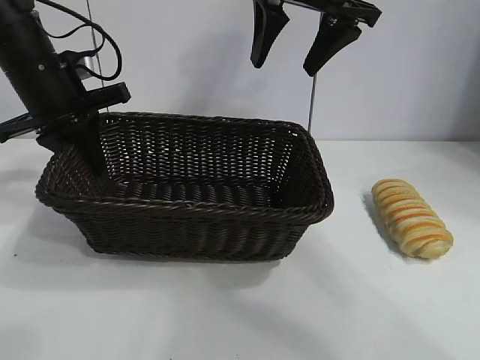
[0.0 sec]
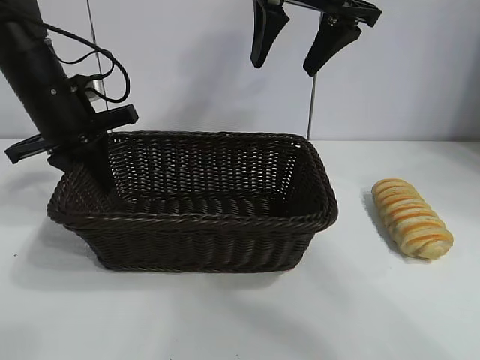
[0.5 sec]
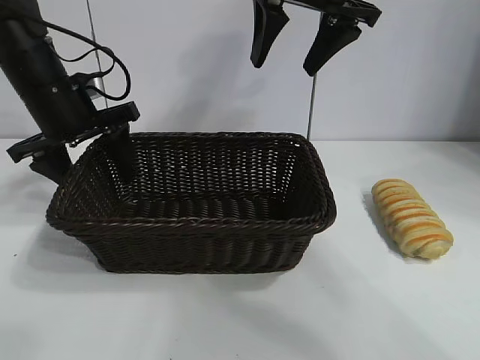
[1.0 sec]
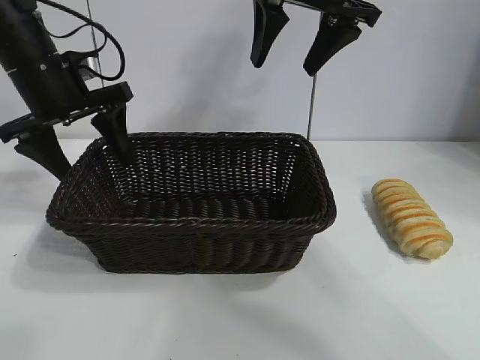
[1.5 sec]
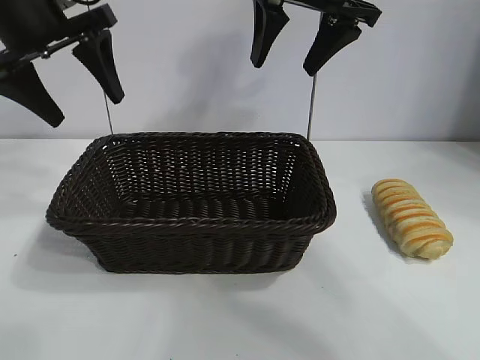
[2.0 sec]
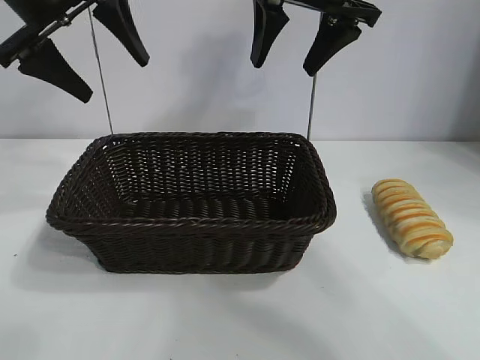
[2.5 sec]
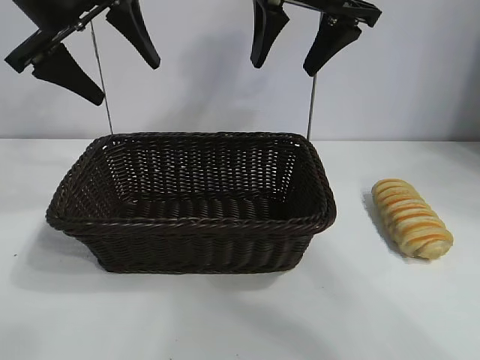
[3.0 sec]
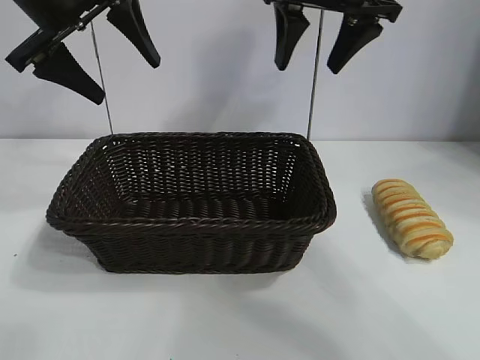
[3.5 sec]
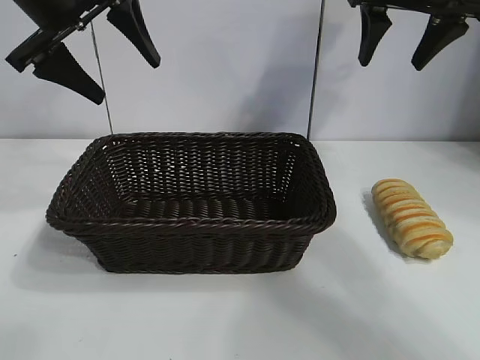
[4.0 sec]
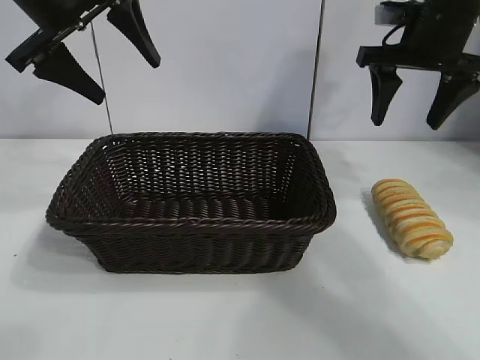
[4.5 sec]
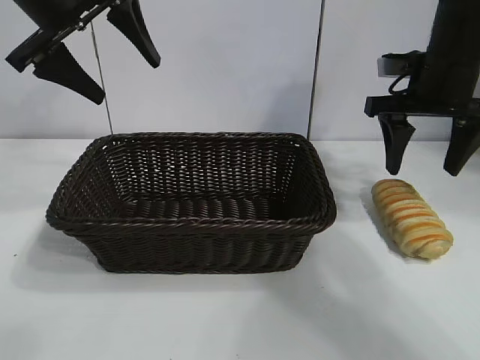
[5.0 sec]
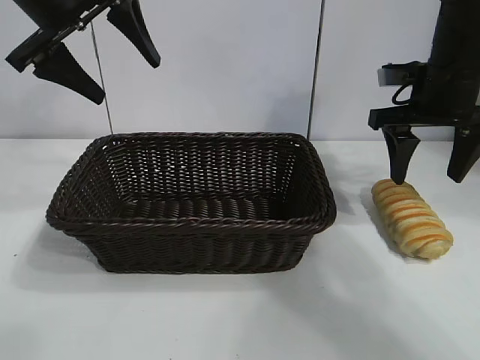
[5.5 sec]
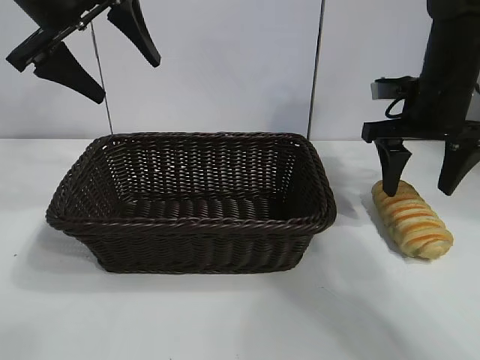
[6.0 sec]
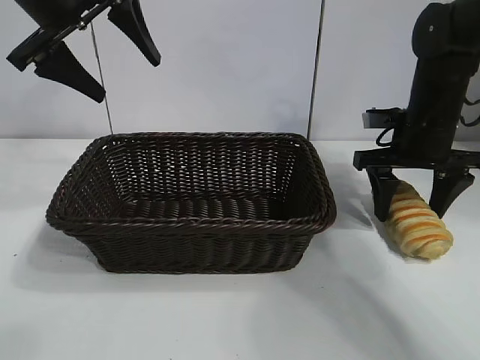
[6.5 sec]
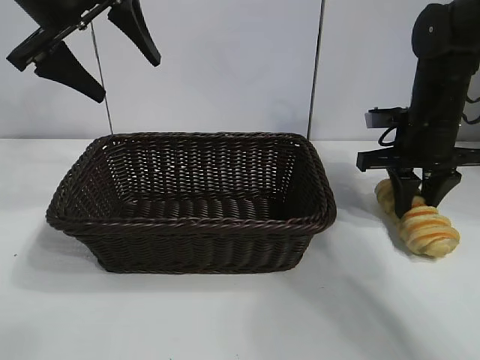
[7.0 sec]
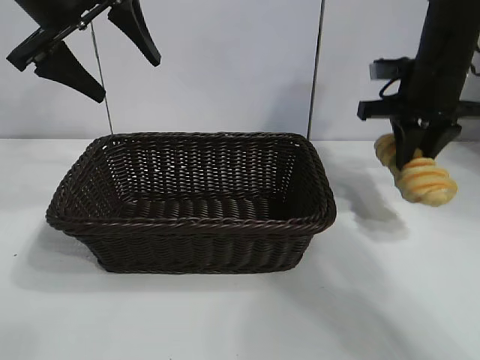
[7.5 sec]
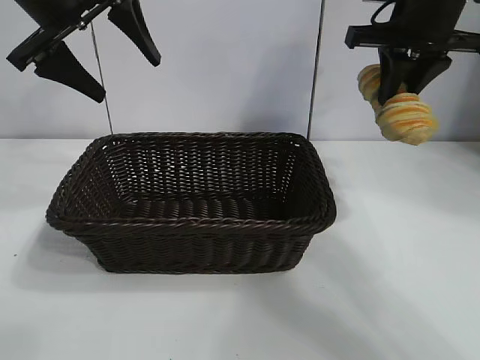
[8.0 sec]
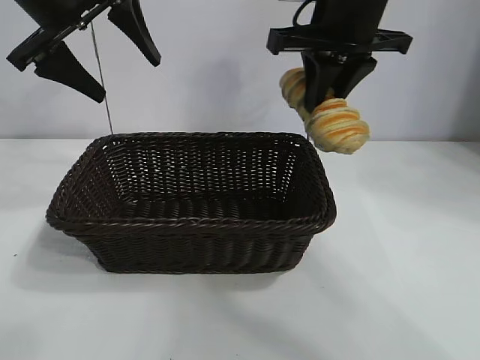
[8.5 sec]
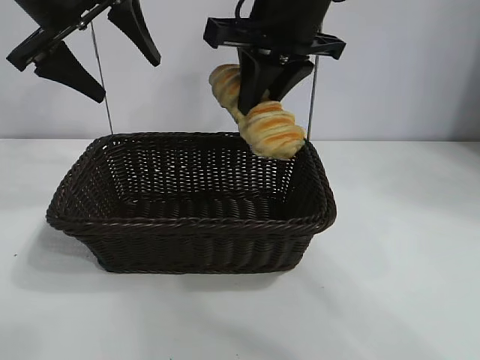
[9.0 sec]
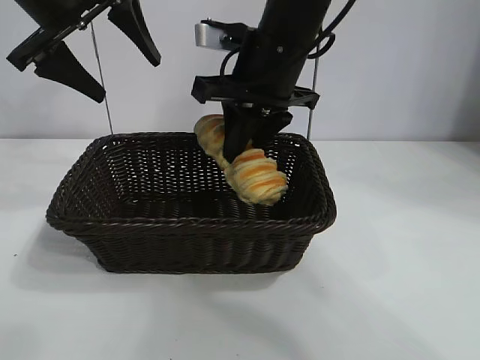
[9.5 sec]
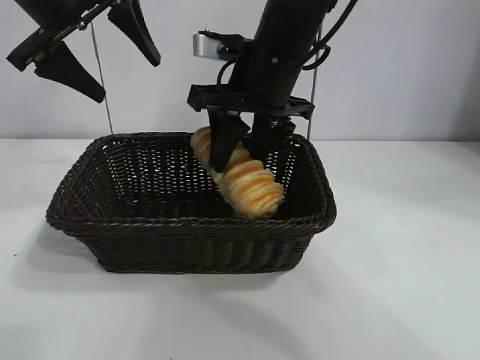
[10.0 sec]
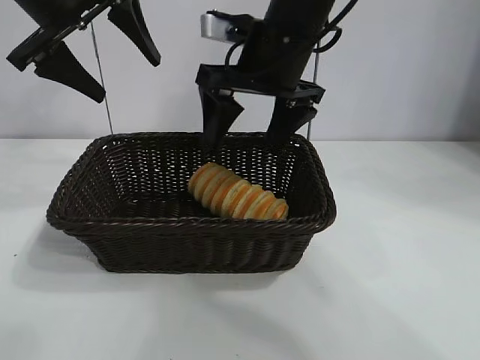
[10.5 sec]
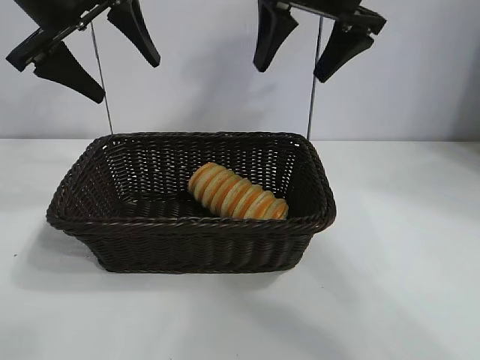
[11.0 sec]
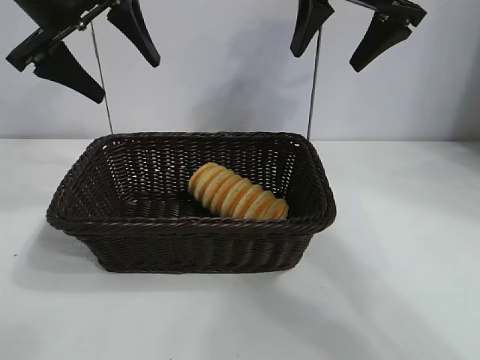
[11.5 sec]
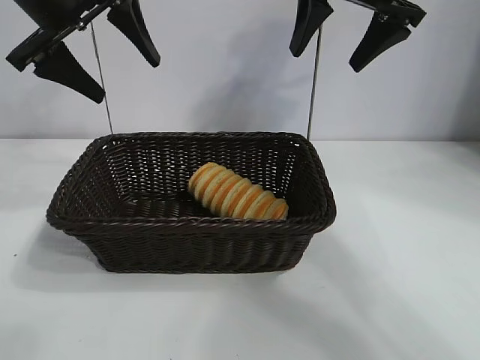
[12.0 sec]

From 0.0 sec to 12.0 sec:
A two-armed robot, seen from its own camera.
Task of the whole recording: pick up the long bread and put it into the basket.
Step, from 1.5 sec to 7.0 sec: Grasp the long bread with right gripper.
Step, from 7.5 sec to 10.0 sec: Place the long bread in the basket with right gripper.
